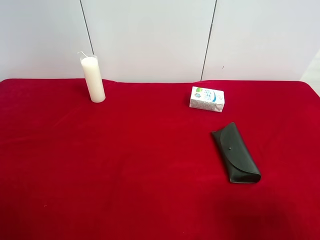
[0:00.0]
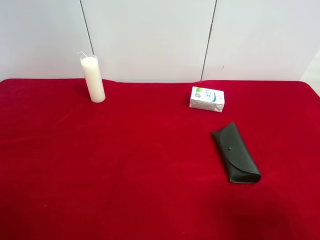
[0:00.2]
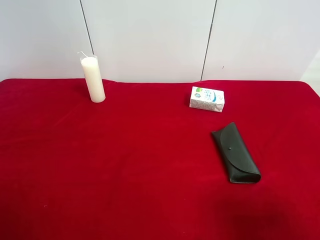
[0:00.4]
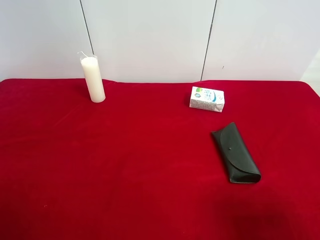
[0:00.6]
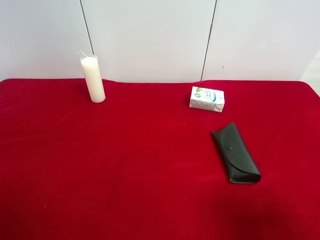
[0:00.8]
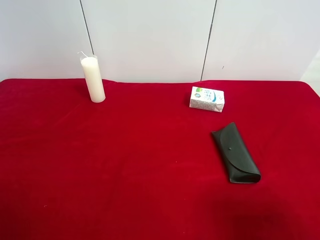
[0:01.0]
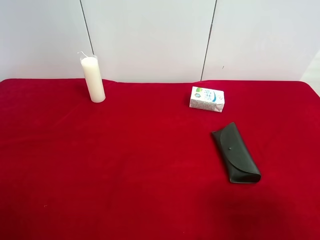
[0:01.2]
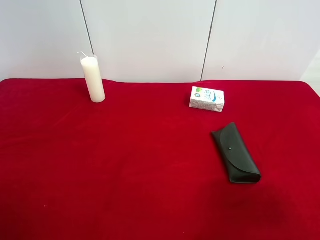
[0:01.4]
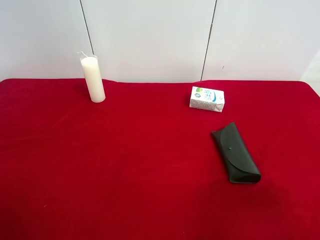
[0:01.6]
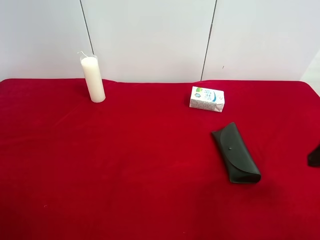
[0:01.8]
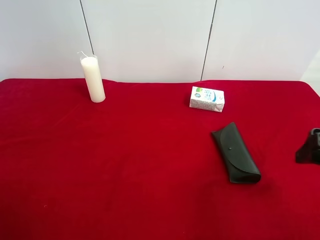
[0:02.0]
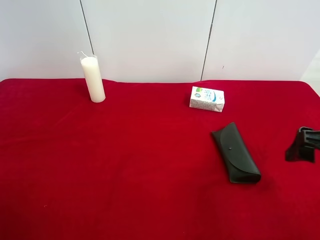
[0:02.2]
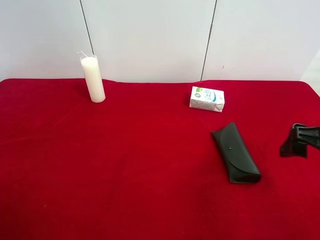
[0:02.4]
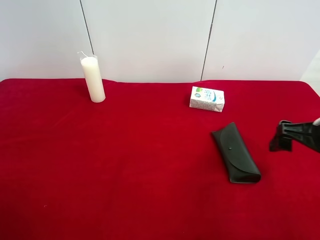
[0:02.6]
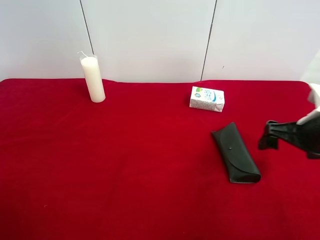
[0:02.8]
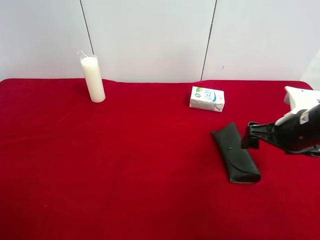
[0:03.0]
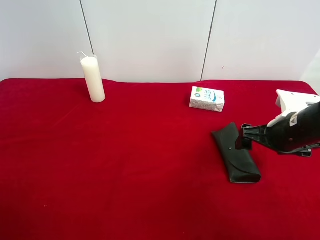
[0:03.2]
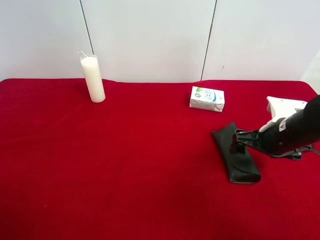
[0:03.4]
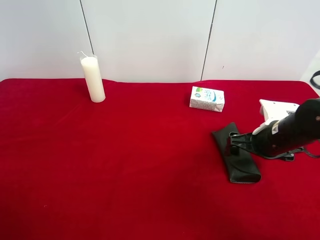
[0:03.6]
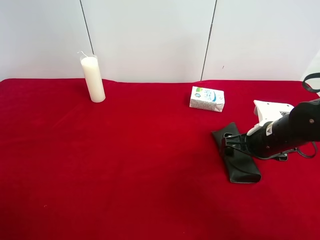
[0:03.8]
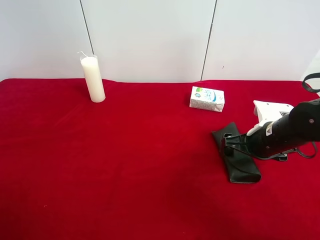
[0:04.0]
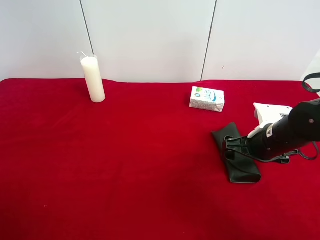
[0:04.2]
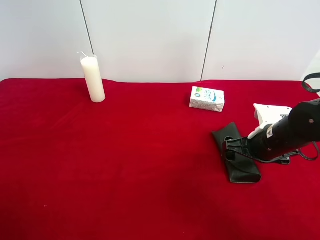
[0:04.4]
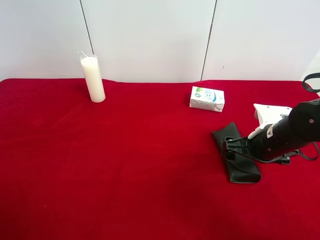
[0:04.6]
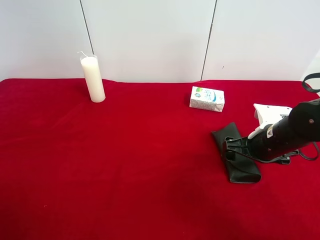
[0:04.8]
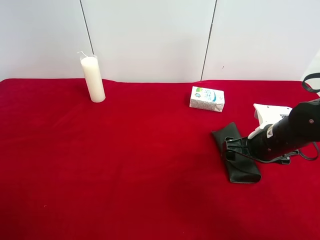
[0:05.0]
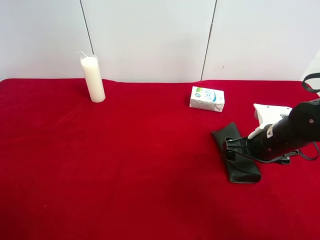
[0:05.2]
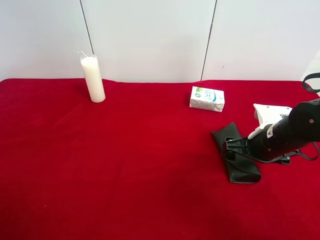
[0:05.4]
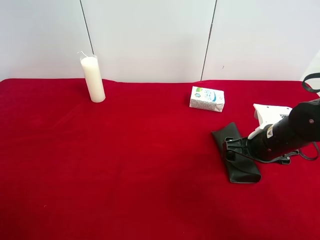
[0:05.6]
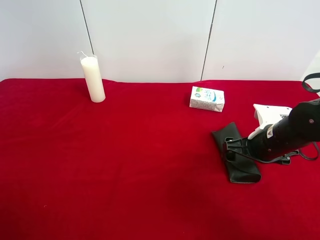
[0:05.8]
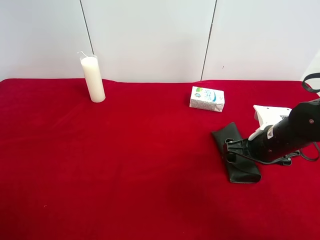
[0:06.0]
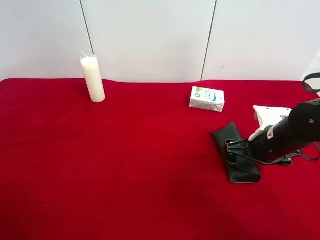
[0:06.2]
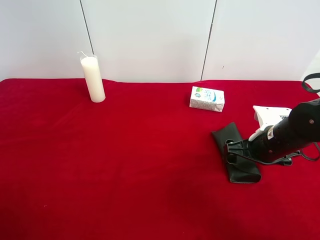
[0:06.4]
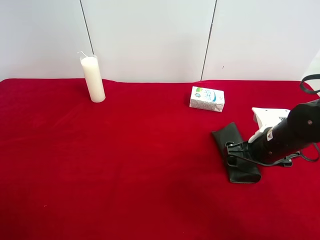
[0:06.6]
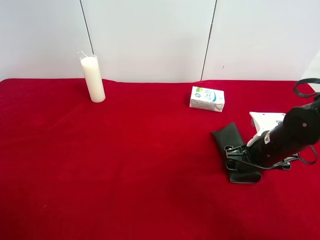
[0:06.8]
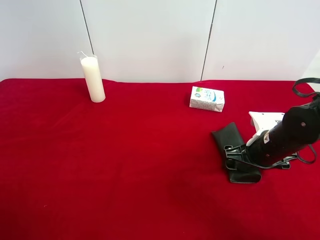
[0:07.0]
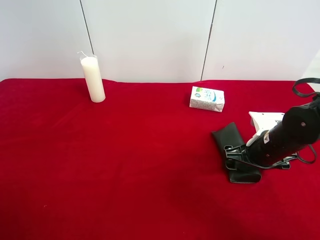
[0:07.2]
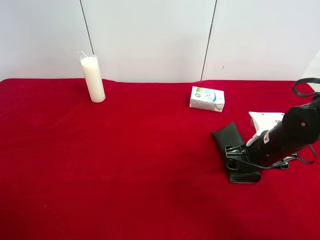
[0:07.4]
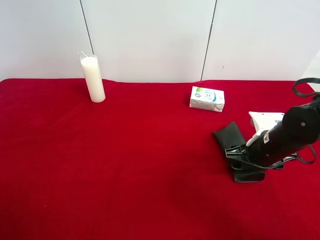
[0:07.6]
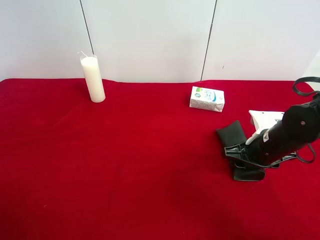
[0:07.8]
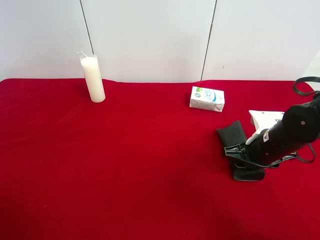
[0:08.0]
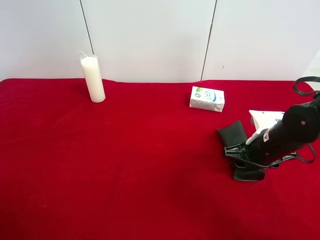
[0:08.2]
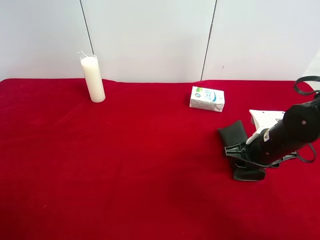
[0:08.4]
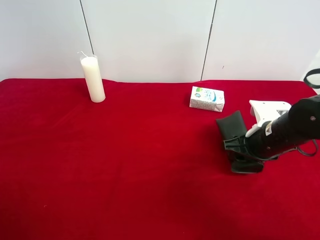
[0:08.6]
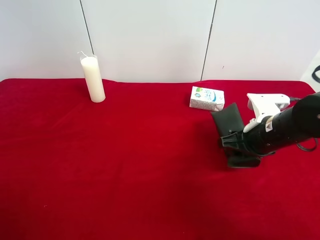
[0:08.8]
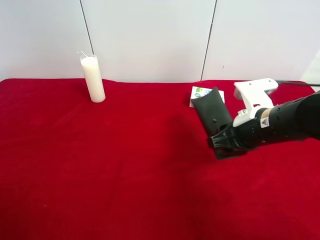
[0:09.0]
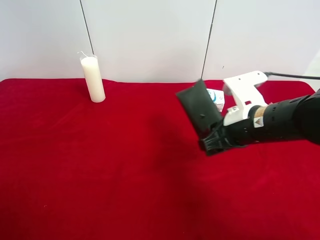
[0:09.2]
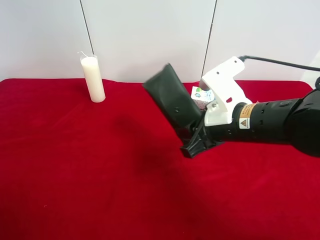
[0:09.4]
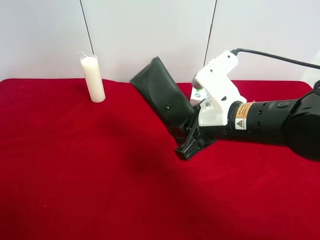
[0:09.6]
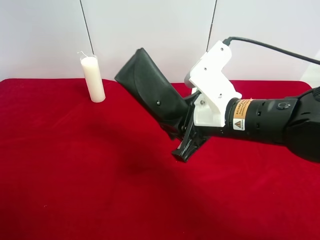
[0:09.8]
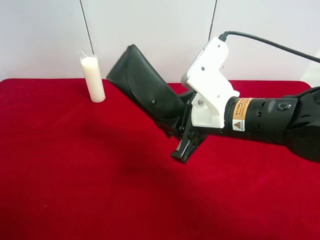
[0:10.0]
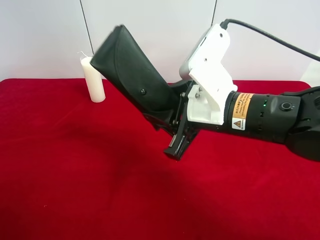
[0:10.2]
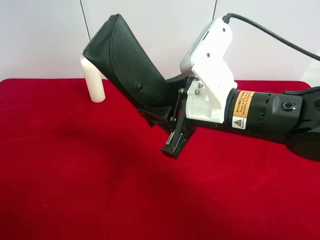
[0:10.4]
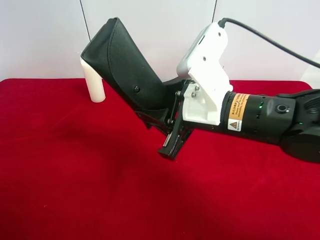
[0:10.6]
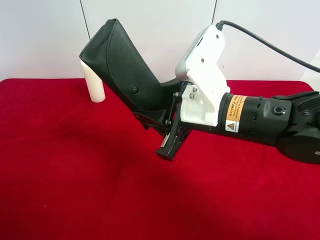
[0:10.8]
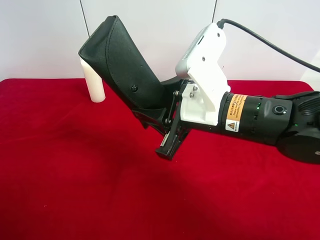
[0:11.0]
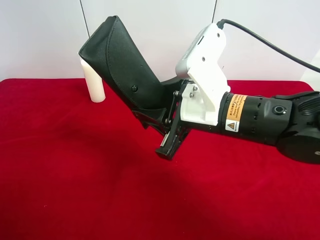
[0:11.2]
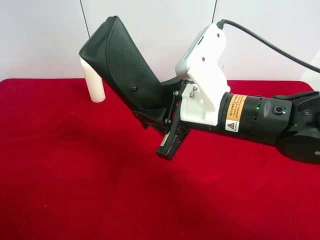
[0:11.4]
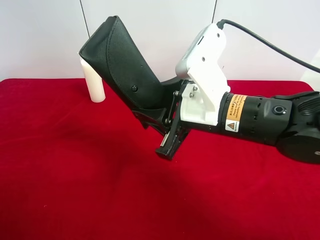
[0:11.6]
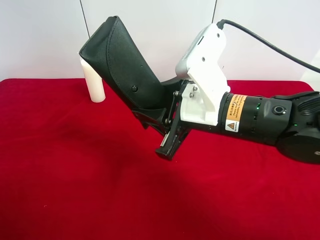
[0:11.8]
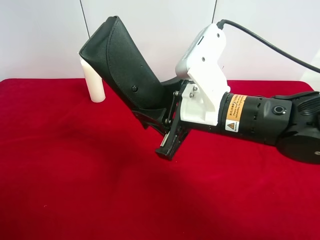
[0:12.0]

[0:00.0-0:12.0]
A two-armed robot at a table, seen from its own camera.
Task of the whole recording: use the right gripper to pick up the item and transfer it from the right gripper to the left gripper.
Step, 0:00.0 to 0:07.8: Use the right gripper to grab the eyeglass case on the right side of the table.
0:01.6 to 0:03.0: The right gripper heads forward and downward, covering some 15 cm.
0:03.0 to 0:04.4: The right gripper goes approximately 5 cm downward.
0:04.4 to 0:06.0: The two grippers keep their place.
0:06.0 to 0:07.6: The right gripper closes up.
0:07.6 to 0:09.0: The right gripper heads upward and to the left, covering some 10 cm.
0:09.0 to 0:10.4: The right gripper moves to the left and upward, about 10 cm.
0:10.4 to 0:12.0: Both grippers stay put.

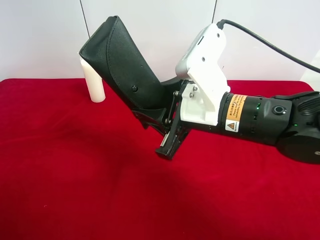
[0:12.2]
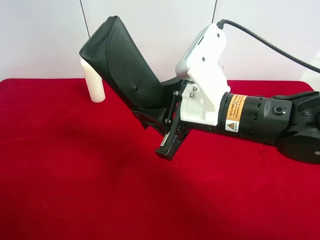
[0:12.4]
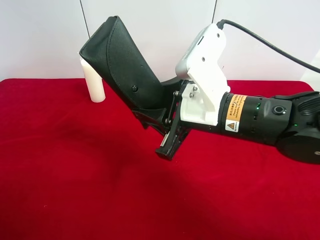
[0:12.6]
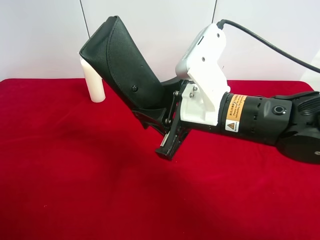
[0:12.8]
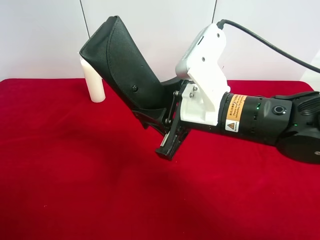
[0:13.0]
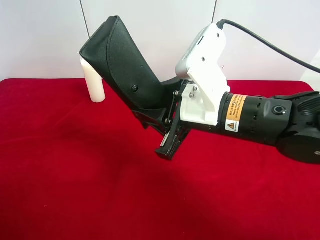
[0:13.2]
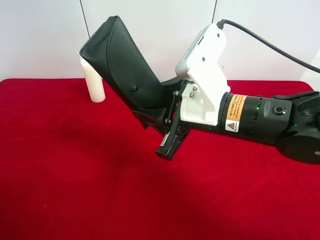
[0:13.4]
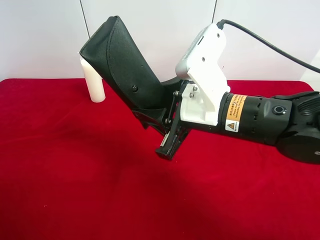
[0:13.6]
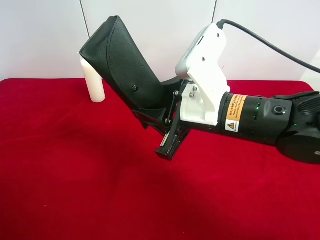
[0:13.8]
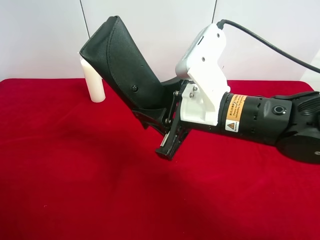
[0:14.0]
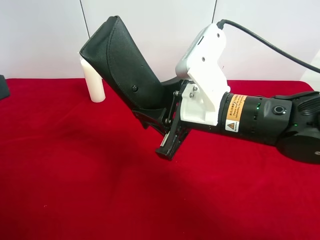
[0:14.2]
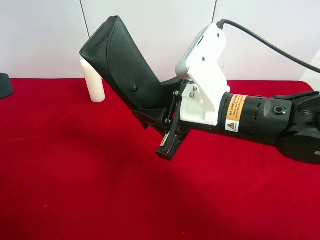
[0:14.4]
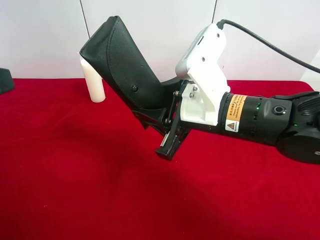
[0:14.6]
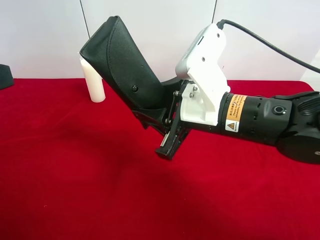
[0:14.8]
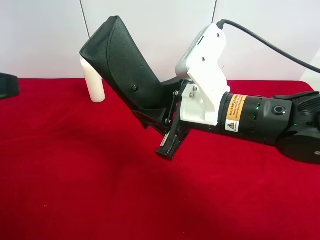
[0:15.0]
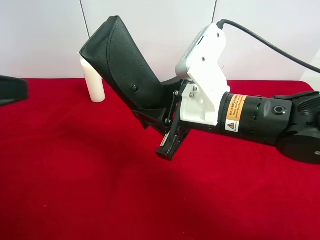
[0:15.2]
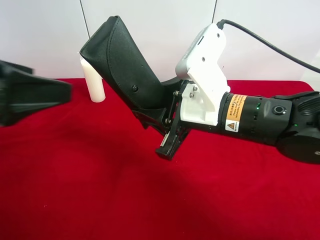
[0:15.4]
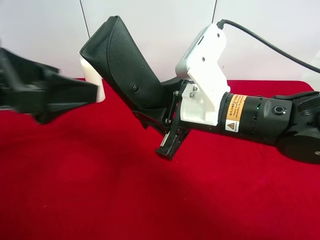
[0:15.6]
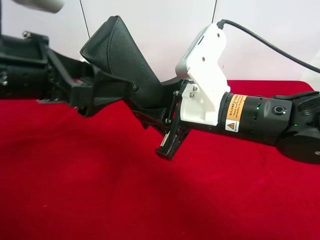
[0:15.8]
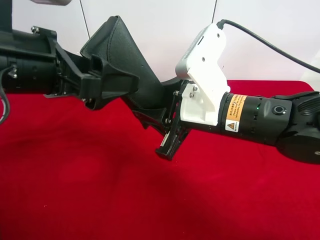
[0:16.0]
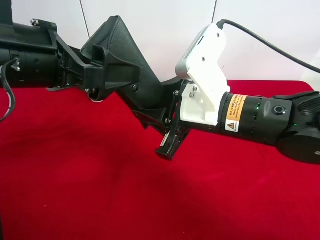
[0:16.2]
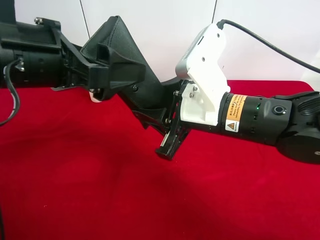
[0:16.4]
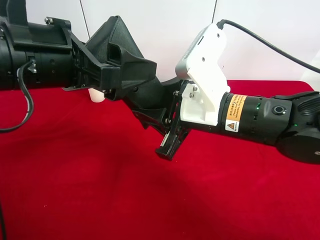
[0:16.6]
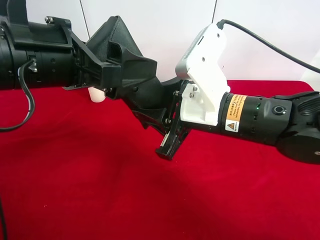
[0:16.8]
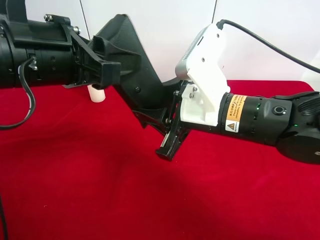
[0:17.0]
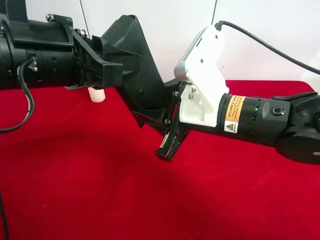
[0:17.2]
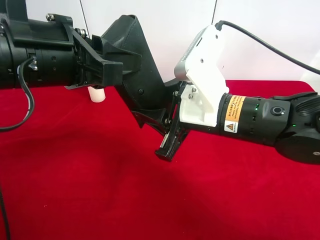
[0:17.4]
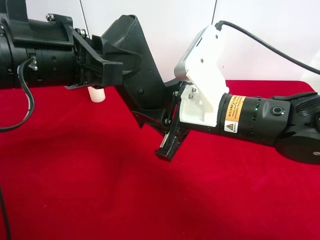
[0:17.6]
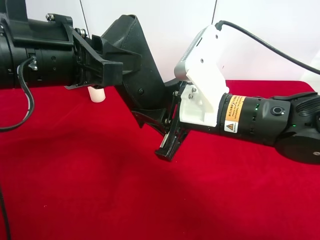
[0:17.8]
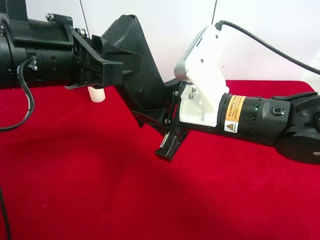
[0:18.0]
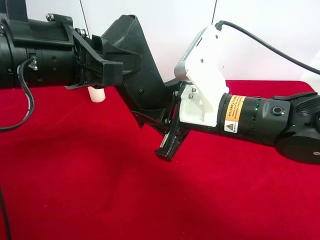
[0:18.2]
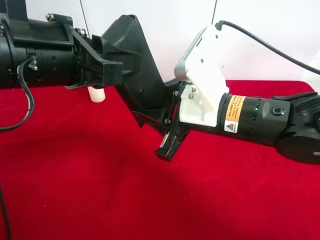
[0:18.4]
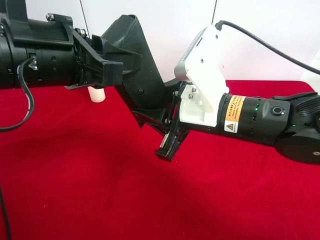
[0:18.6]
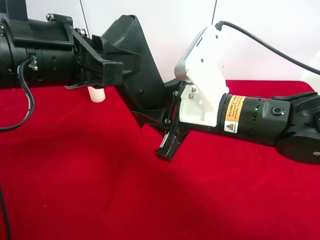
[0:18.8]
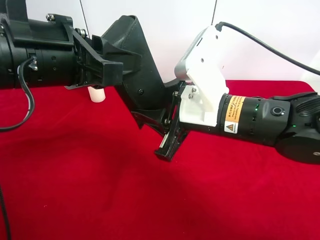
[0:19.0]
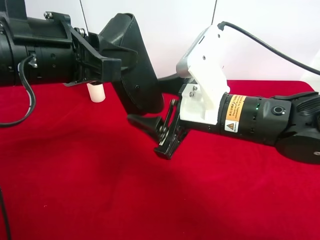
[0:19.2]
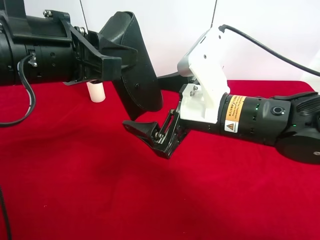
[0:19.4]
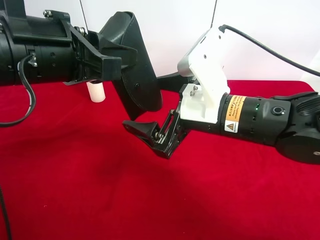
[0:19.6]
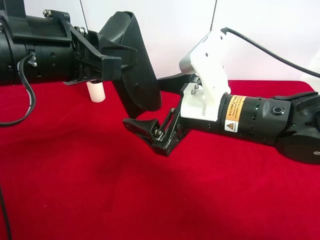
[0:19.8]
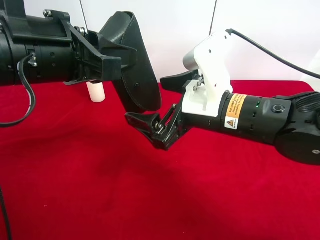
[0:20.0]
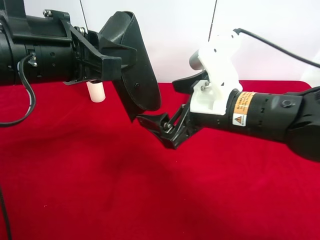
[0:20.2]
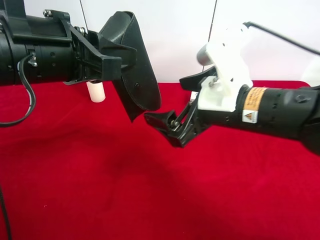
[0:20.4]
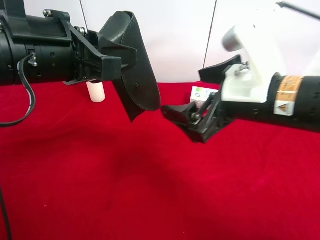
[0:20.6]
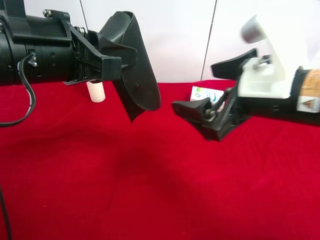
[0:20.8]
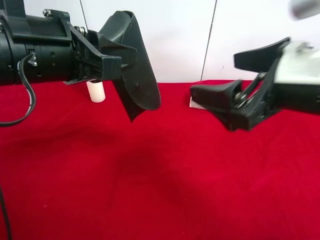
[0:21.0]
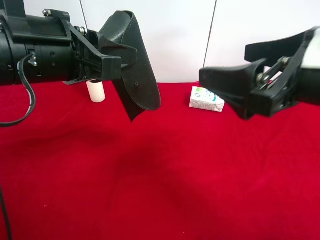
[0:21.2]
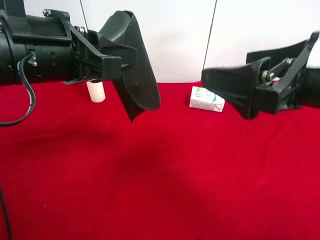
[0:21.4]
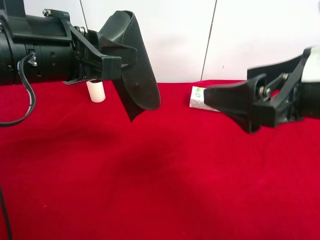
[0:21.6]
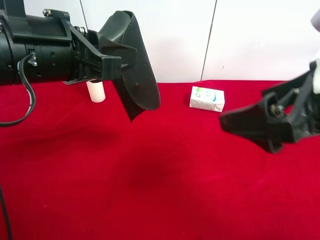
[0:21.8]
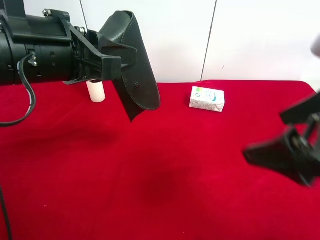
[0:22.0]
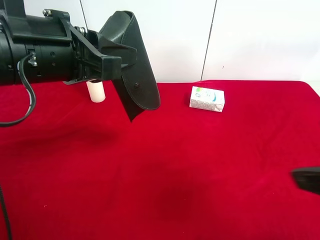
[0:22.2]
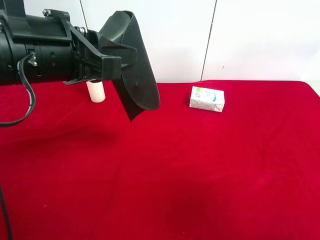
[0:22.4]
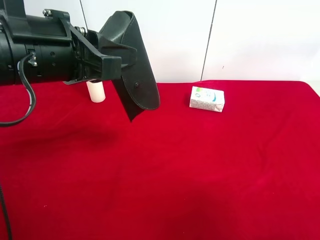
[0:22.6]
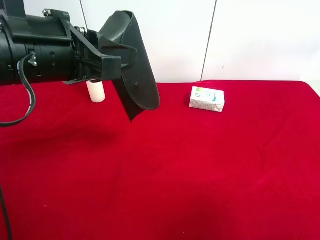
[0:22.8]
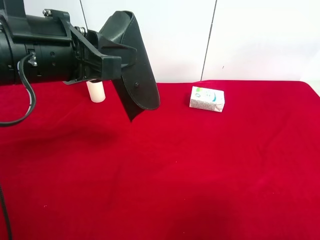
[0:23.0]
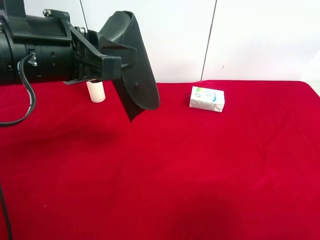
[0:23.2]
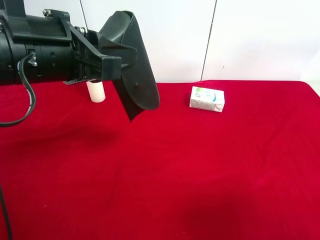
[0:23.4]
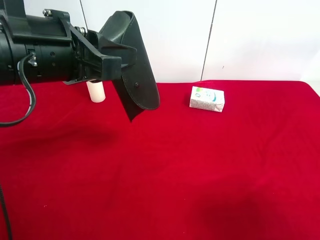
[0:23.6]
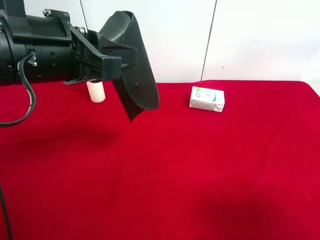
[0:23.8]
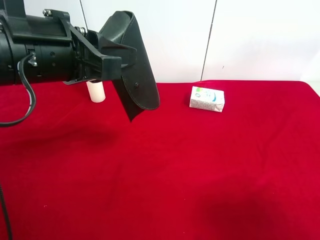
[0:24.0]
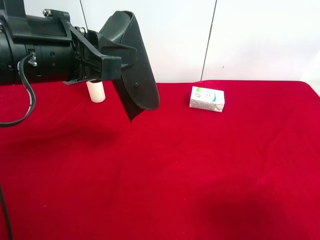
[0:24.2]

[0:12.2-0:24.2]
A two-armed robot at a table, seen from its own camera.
Task of the whole recording: use the right gripper to pick up the item and transfer it from the right gripper to the left gripper.
Step, 0:12.2 to 0:19.4: Pass the eyeglass case to the left gripper.
0:15.2 to 0:16.6: The left gripper heads to the right and forward, covering roughly 15 cm.
0:16.6 to 0:18.2: The left gripper closes its fingers.
0:18.2 to 0:19.8: The right gripper opens up.
0:19.8 to 0:21.2: The right gripper travels upward, to the right and backward by approximately 15 cm.
0:21.2 to 0:22.6: The right gripper heads backward and to the right, covering approximately 20 cm.
